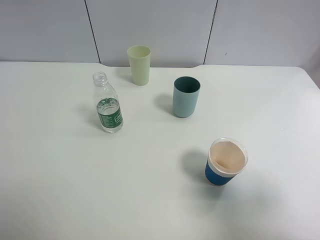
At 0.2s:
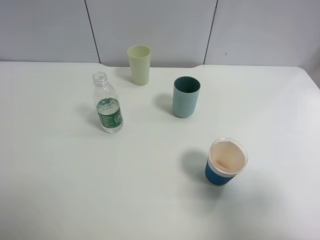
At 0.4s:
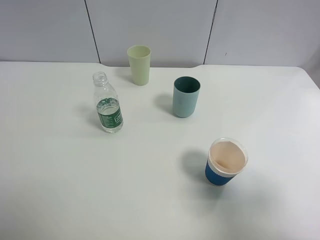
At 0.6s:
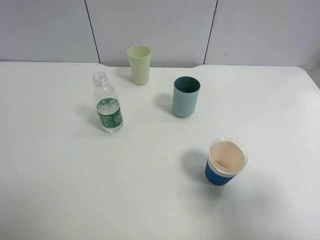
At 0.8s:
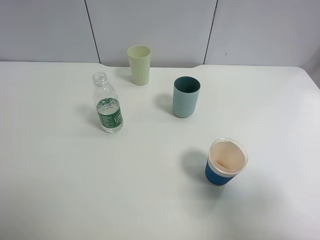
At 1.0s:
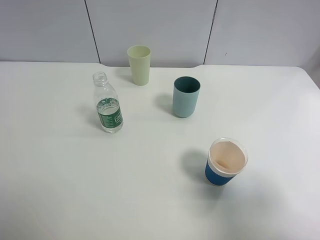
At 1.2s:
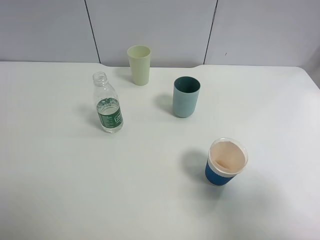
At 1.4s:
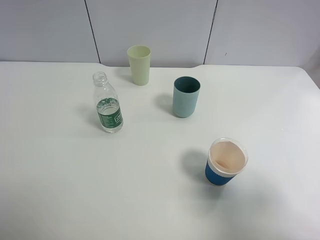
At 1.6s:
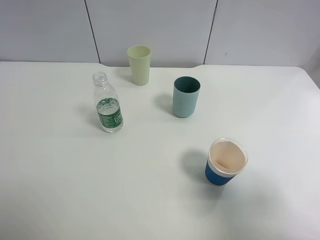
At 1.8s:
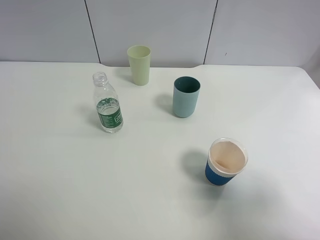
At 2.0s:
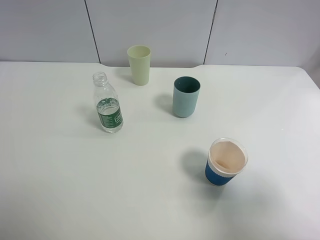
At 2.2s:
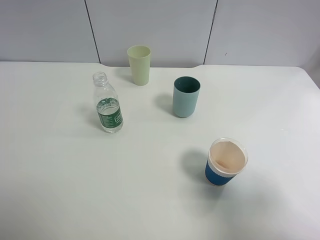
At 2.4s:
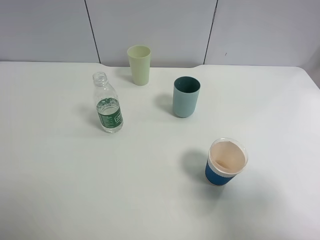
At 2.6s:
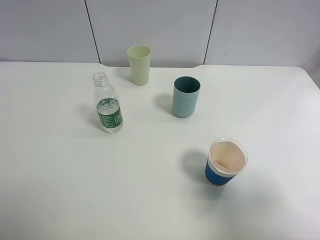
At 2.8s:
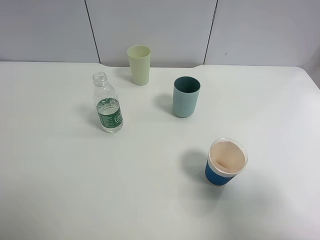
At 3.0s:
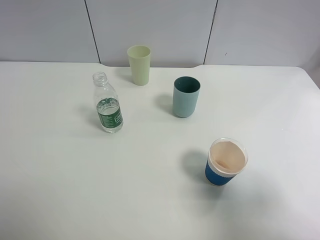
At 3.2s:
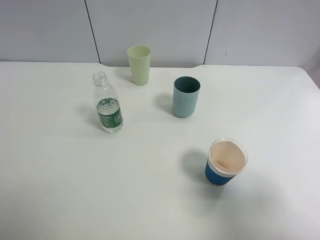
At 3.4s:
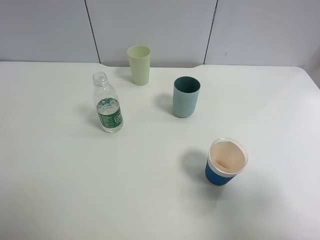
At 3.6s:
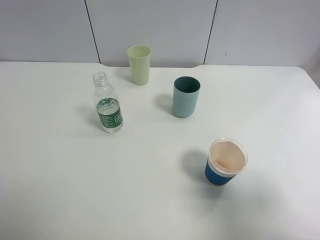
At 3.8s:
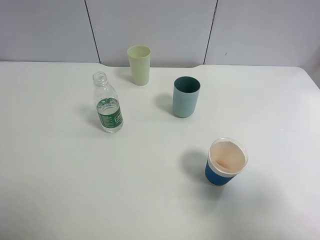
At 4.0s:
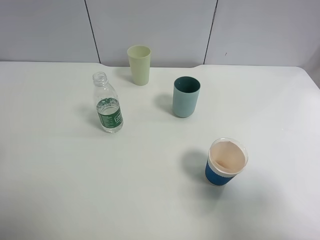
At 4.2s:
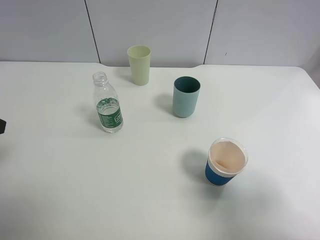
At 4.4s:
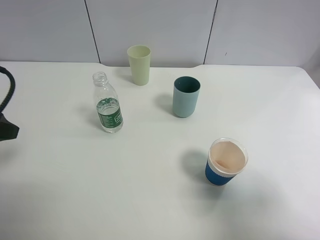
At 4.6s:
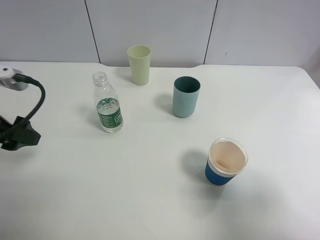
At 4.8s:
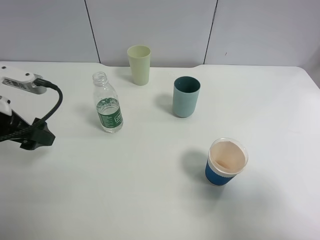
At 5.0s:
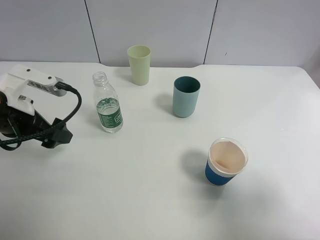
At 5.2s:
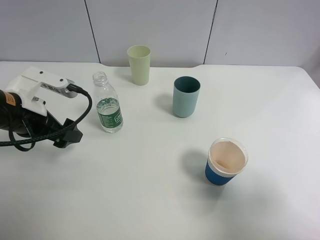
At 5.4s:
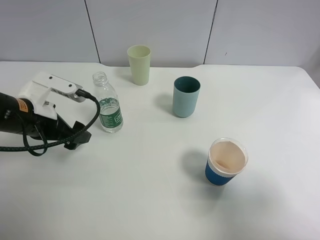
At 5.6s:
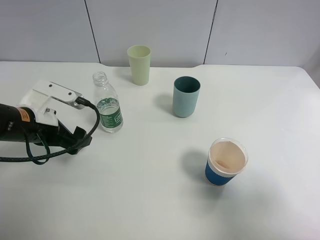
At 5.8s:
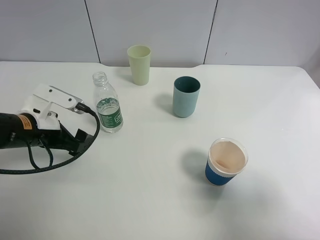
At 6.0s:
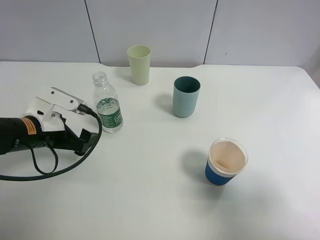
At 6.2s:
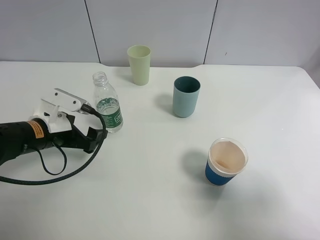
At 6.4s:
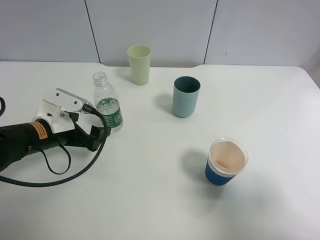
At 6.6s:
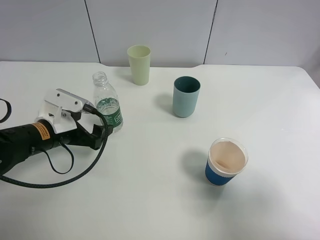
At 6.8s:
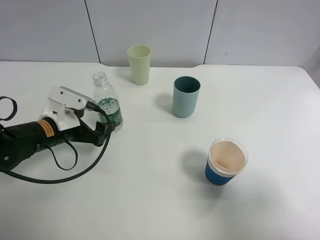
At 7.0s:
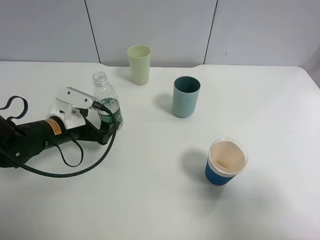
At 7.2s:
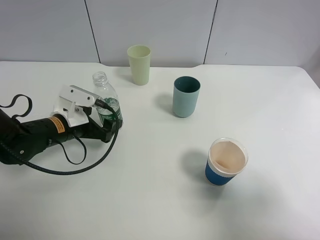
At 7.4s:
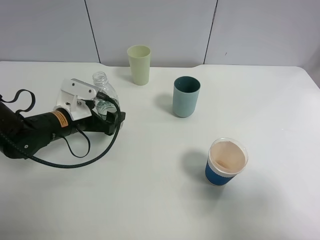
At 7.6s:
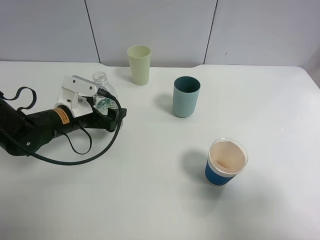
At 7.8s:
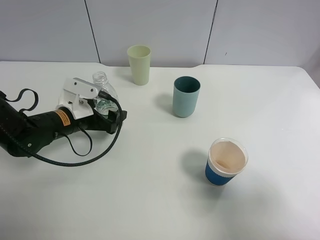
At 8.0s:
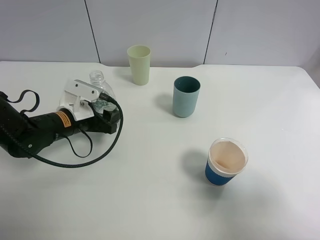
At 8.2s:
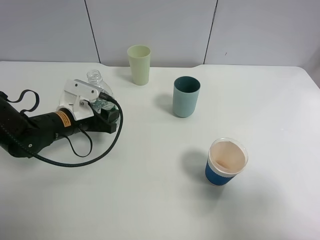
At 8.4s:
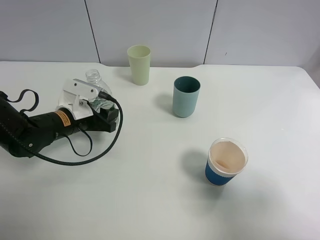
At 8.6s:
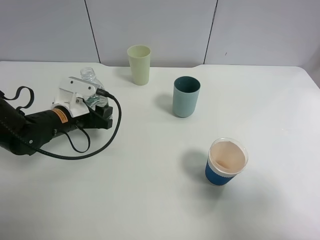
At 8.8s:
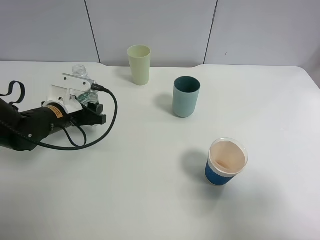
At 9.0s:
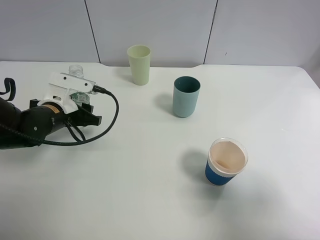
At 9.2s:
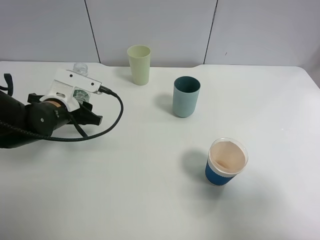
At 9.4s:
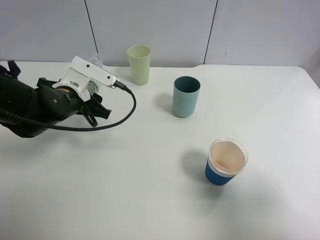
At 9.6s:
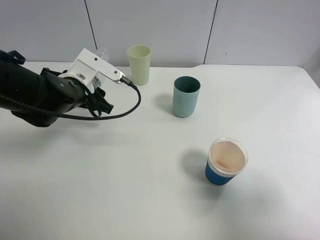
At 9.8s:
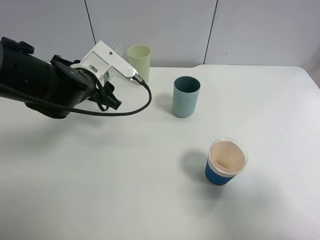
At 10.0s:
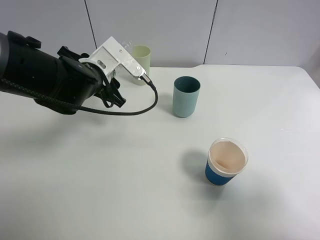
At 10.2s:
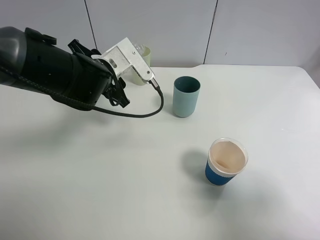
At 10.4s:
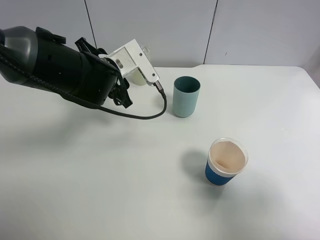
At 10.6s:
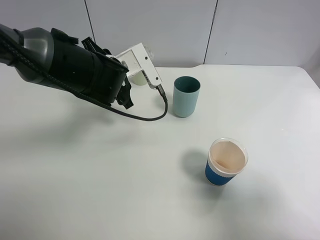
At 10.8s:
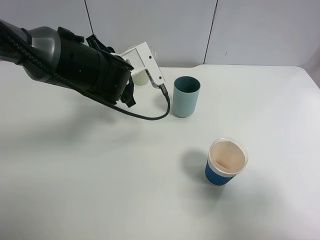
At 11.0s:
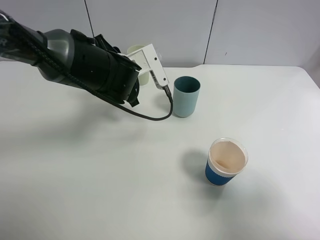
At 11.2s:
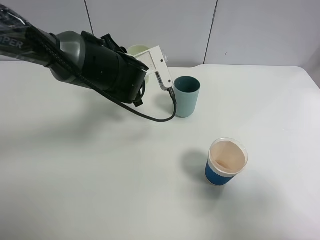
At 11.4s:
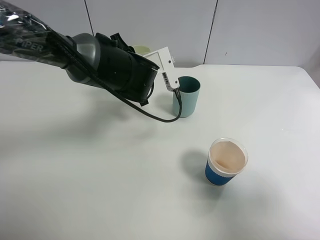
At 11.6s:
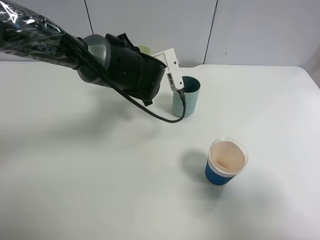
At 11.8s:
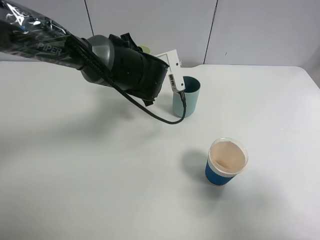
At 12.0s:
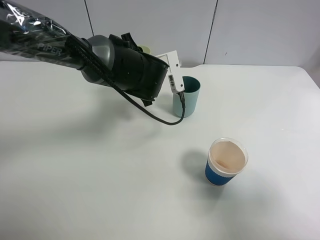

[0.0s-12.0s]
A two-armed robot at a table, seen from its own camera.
Task of the whole recording: use a clamp to hold the bottle of the drink, pour the beverage into a random cup, then clamp the cup containing the drink and pour the drink into another random cup.
Step, 0.0s to 8.8s: Pick up the water bottle with left gripper.
0.0s to 3.0s: Neither gripper changes place.
3.0s to 4.4s: The left gripper shifts some 15 cm forward.
4.4s to 6.0s: The left gripper heads downward, to the right and forward, covering about 15 cm.
6.0s to 7.6s: The left gripper is displaced forward by about 5 cm.
7.6s to 9.0s: The left gripper closes.
9.0s to 10.4s: The left gripper heads to the right and upward, covering about 15 cm.
10.4s to 12.0s: The left gripper heads to the right, covering about 5 cm.

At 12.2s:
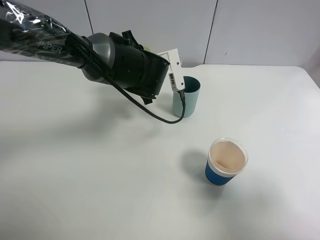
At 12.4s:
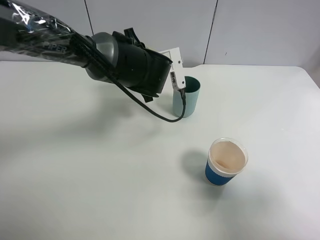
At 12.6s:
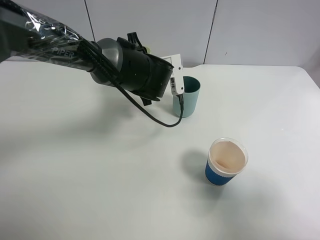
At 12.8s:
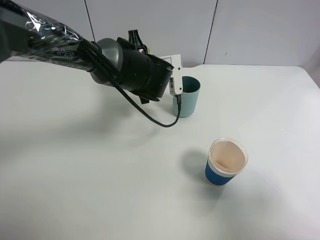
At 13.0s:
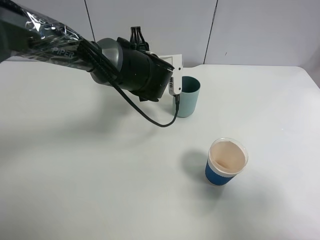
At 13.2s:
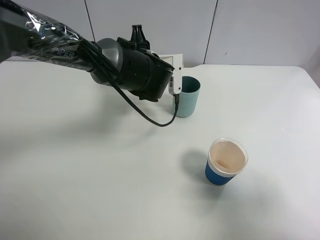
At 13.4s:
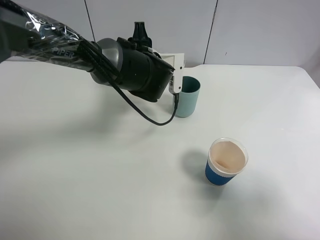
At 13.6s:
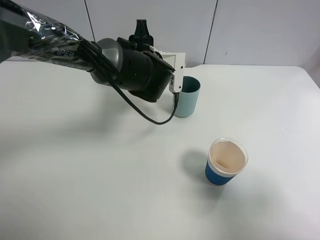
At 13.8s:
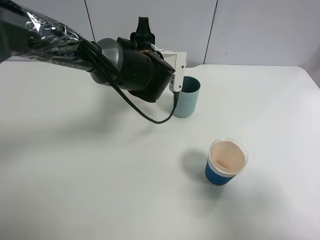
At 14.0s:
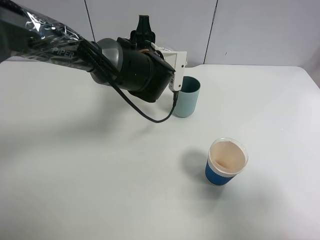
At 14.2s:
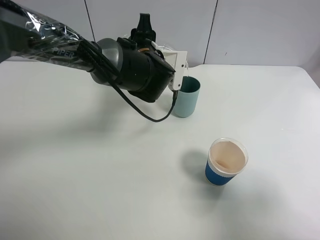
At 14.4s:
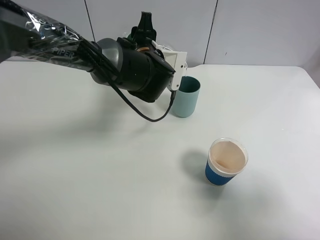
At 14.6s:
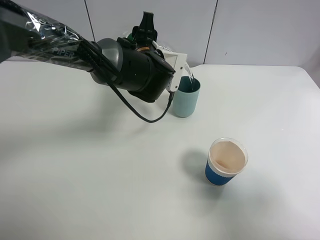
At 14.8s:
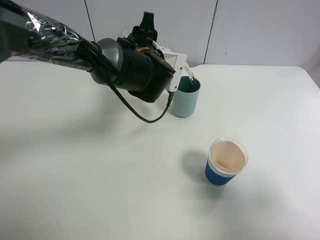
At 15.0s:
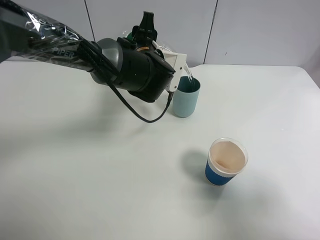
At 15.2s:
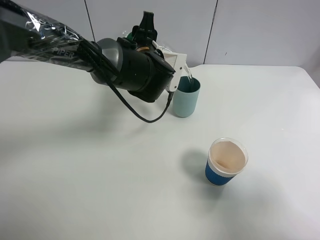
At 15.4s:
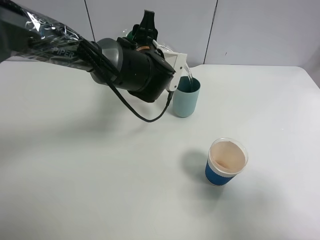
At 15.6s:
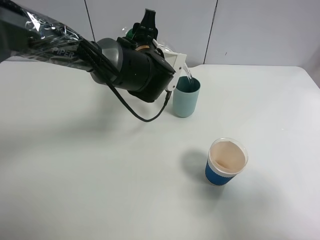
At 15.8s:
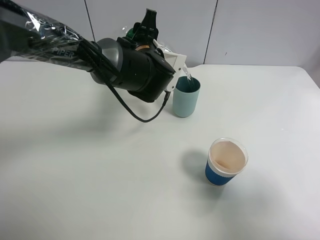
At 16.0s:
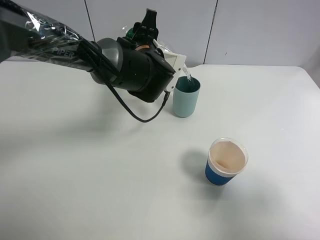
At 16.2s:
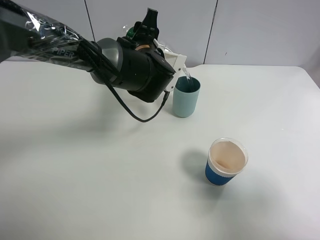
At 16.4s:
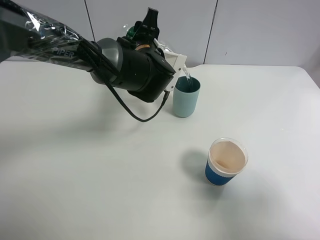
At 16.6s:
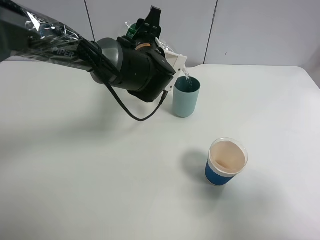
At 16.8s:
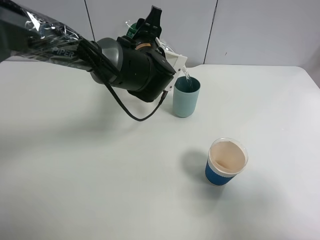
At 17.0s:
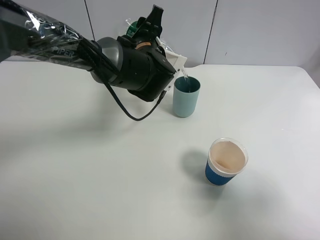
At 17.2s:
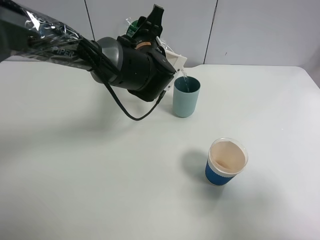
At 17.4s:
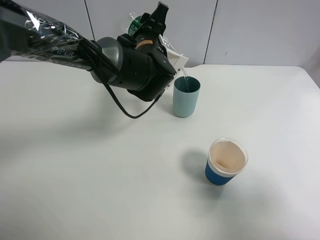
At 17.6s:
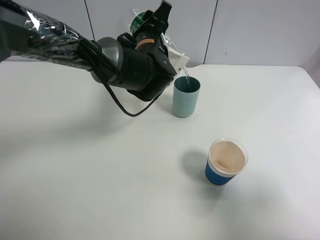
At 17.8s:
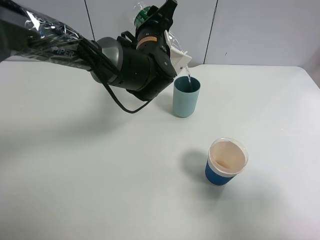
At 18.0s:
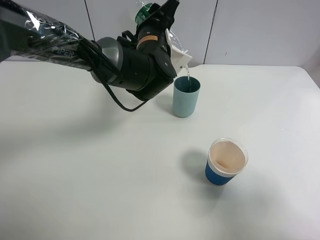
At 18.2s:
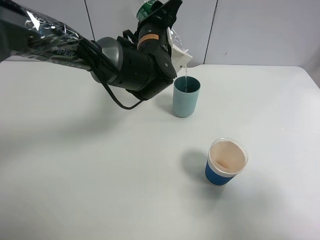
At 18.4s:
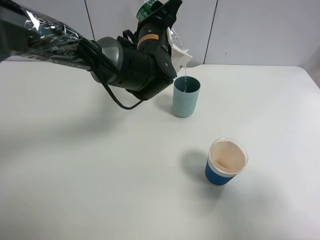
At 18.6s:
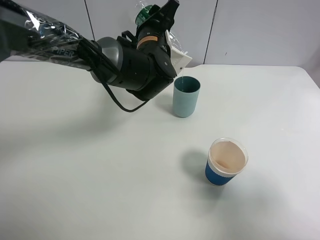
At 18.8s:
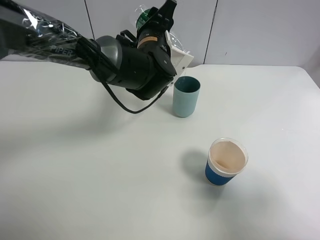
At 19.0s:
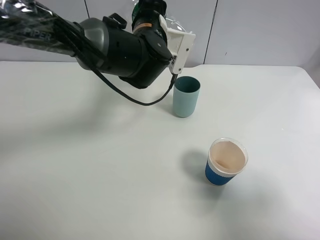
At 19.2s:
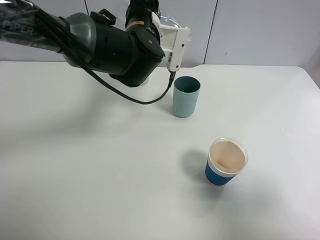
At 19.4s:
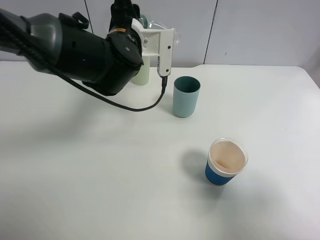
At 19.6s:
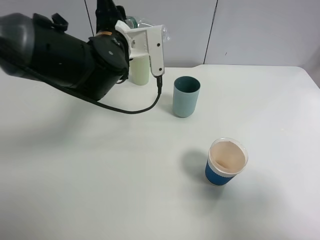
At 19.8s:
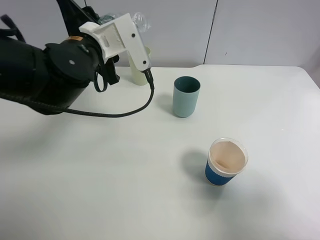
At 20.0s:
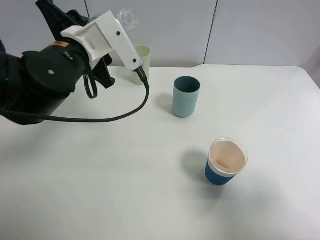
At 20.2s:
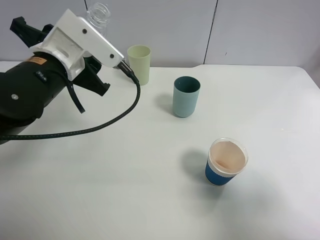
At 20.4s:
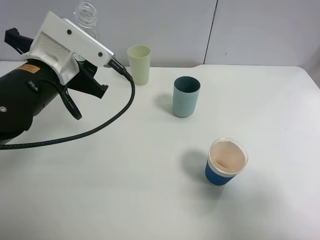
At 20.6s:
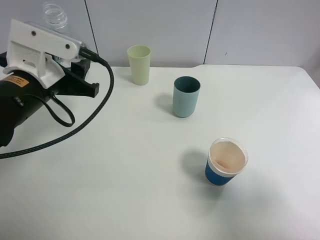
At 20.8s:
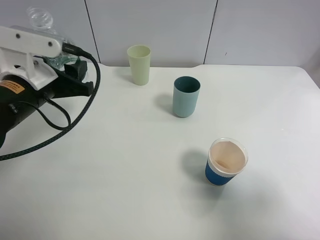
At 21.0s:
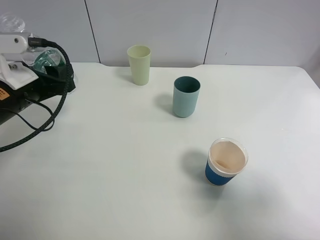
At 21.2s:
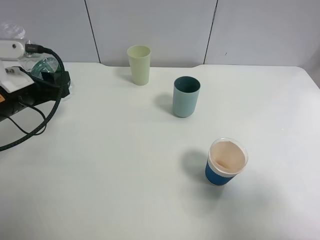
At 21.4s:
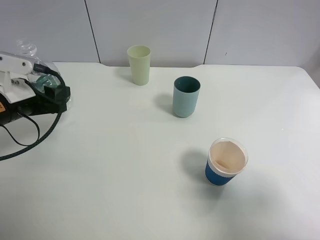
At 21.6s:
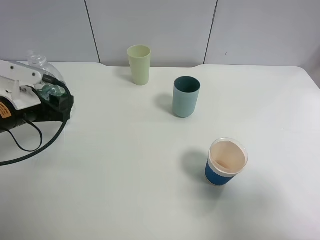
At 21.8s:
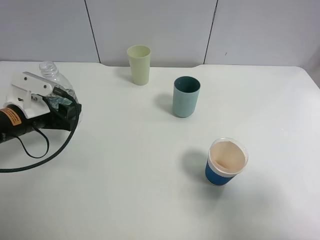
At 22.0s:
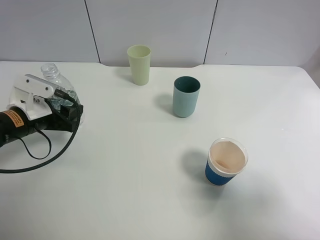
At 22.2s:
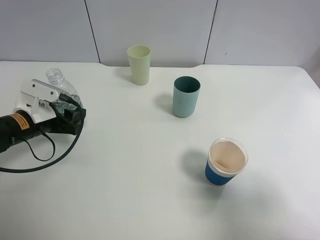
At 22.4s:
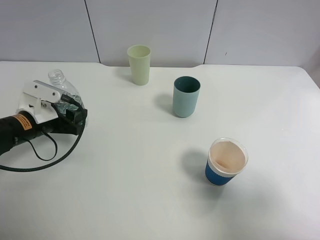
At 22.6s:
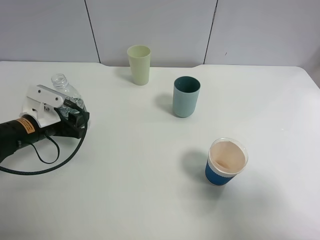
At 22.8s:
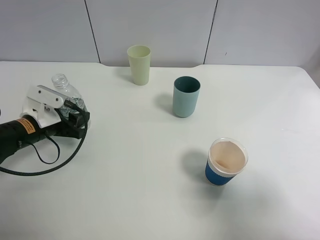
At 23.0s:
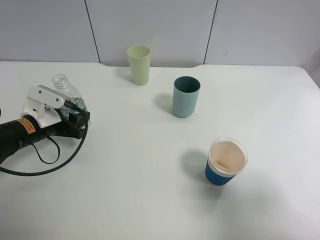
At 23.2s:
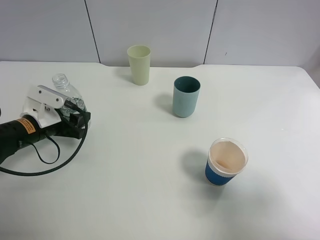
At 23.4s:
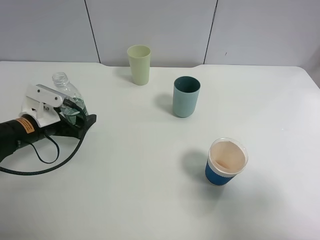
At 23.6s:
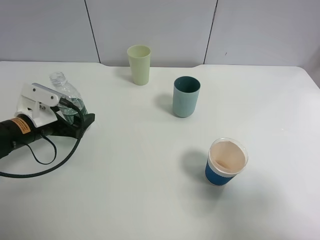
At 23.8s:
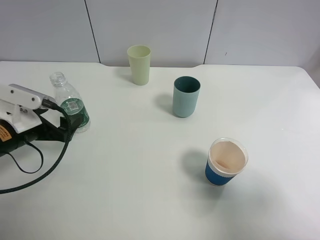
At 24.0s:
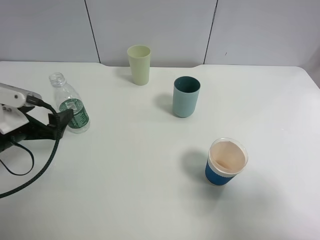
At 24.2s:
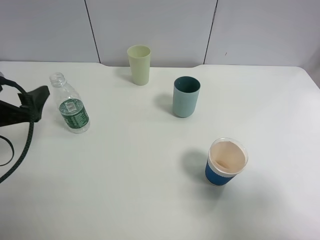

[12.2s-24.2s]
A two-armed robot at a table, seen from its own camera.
Task of the whole recording: use a clamp to hold the bottle of the drink, pour the beverage into a random cup, then clamp the cup containing the drink and pour the drink into another random cup.
Step, 12.2s to 19.2s: Pour the water into the blue plastic cup with left gripper.
Step, 19.4s to 23.4s: Place the water bottle on the table with left gripper.
12.2s to 13.8s: The grippers make only small movements.
13.8s to 16.6s: The grippers make only small movements.
16.6s to 18.2s: The grippers make only small movements.
18.2s to 19.8s: The left gripper shifts about 15 cm to the left and backward.
19.8s to 21.2s: The left gripper is displaced to the left by roughly 15 cm.
21.2s to 22.6s: The left gripper moves downward, about 10 cm.
22.6s to 24.2s: The left gripper shifts approximately 10 cm upward and backward, and opens.
